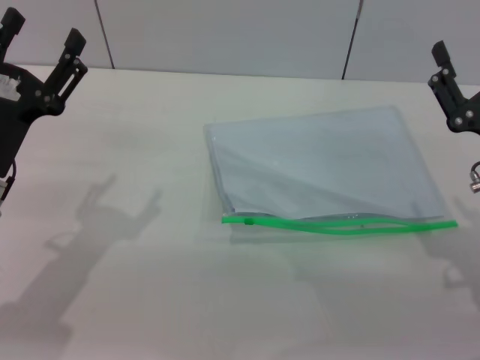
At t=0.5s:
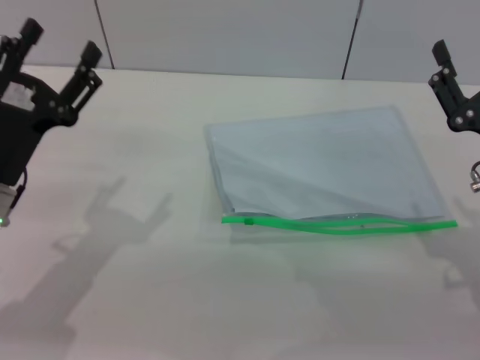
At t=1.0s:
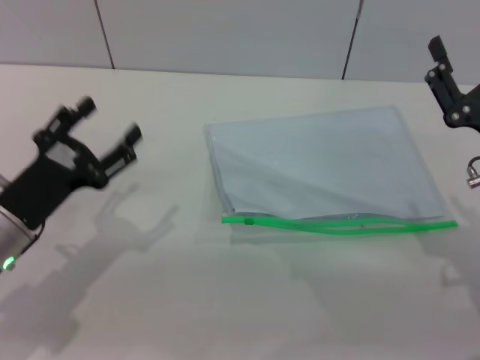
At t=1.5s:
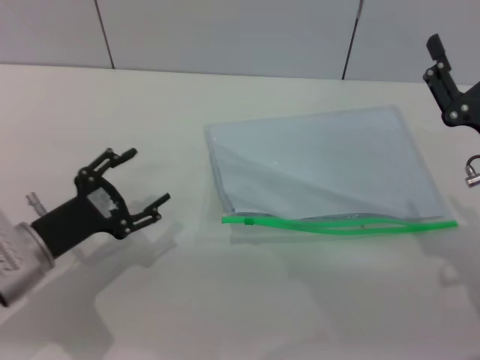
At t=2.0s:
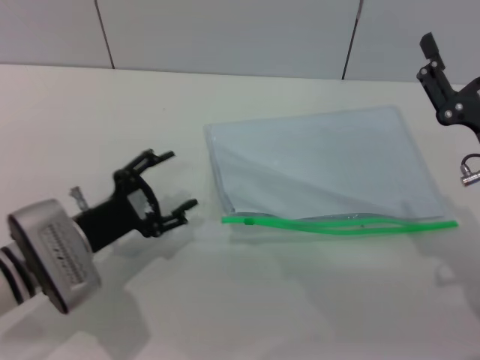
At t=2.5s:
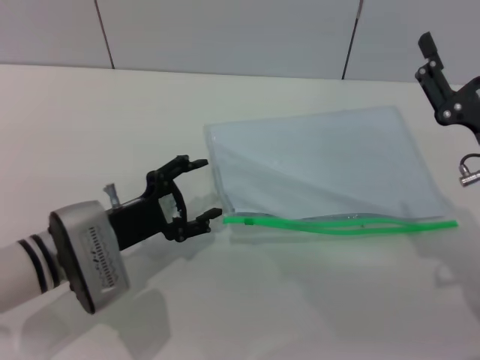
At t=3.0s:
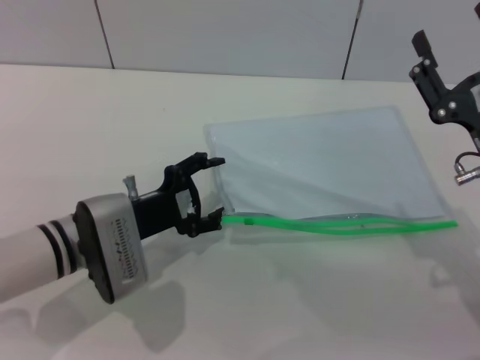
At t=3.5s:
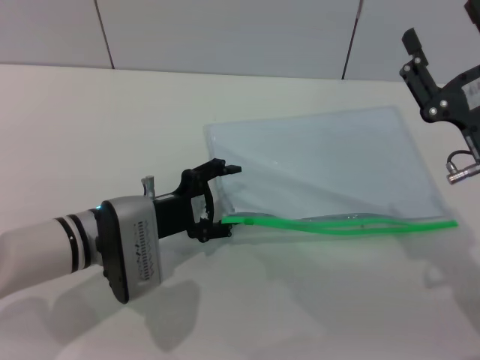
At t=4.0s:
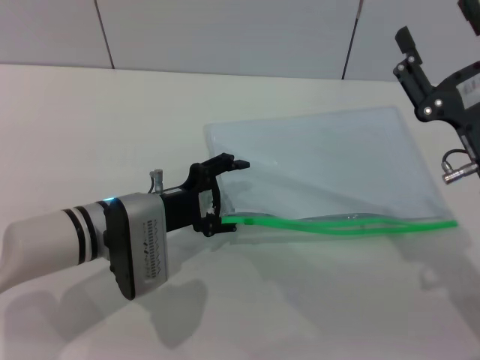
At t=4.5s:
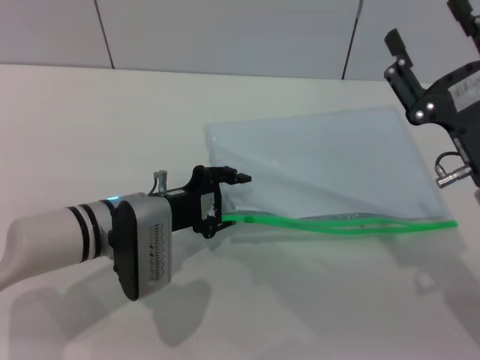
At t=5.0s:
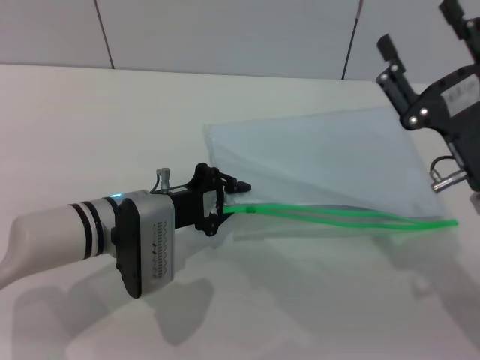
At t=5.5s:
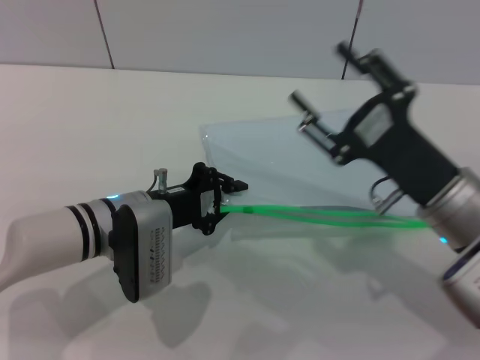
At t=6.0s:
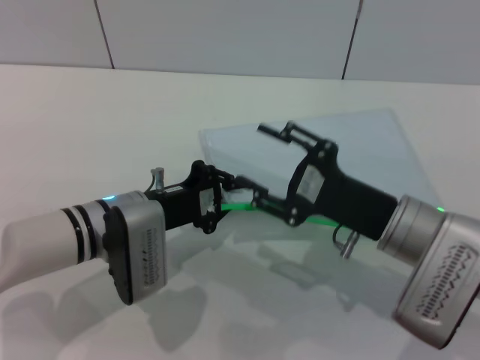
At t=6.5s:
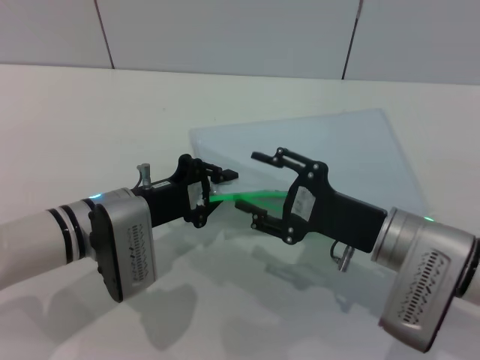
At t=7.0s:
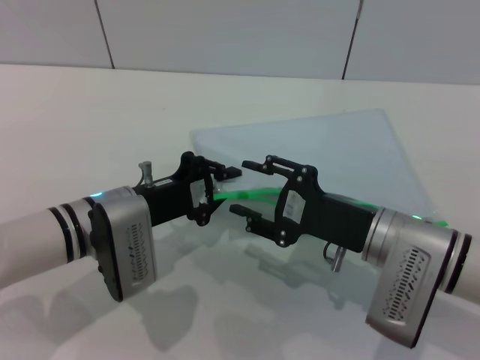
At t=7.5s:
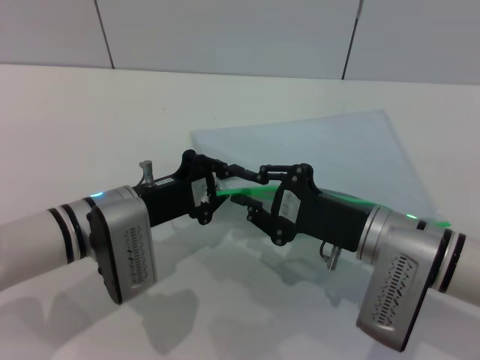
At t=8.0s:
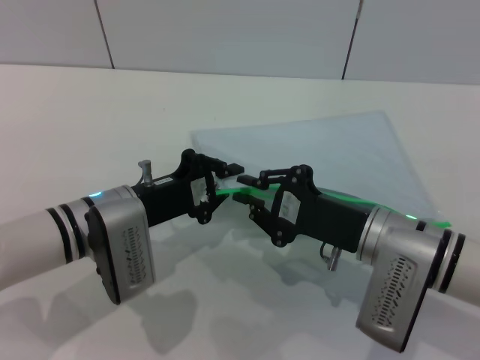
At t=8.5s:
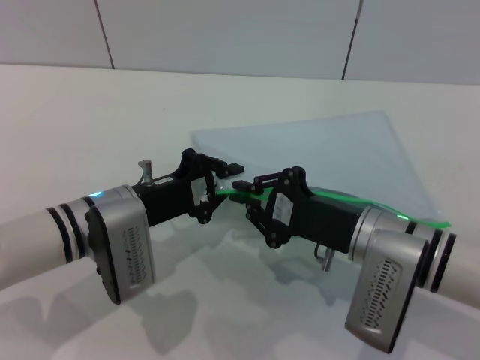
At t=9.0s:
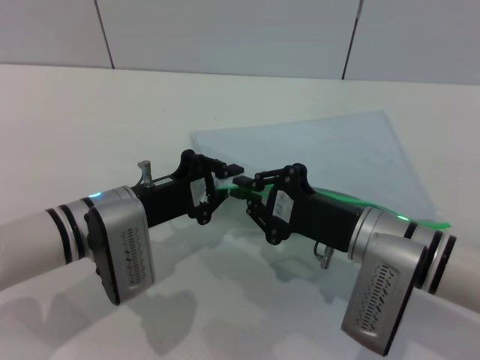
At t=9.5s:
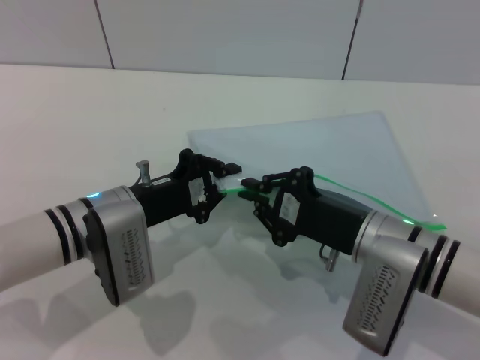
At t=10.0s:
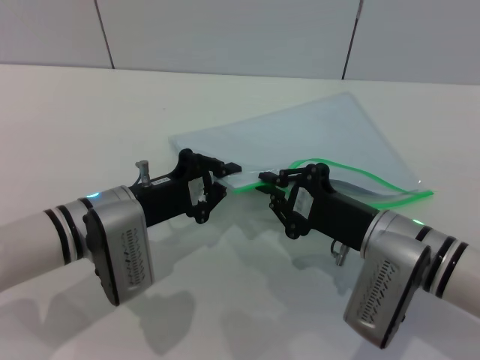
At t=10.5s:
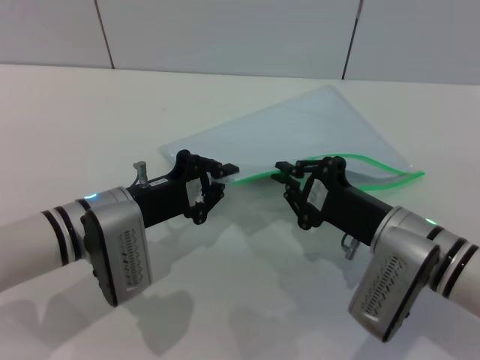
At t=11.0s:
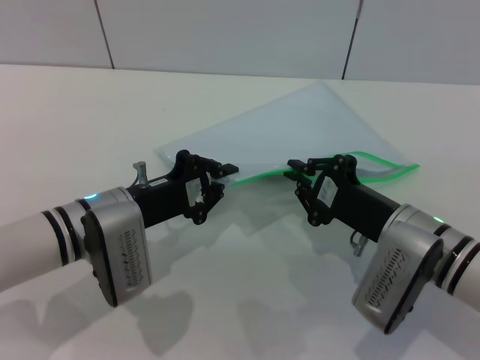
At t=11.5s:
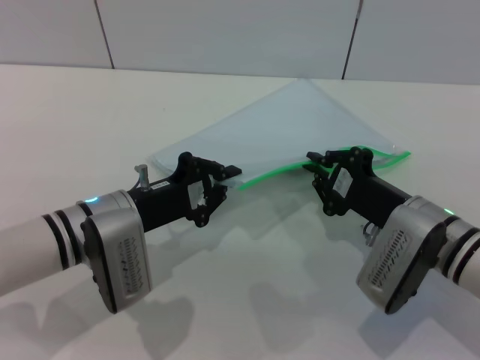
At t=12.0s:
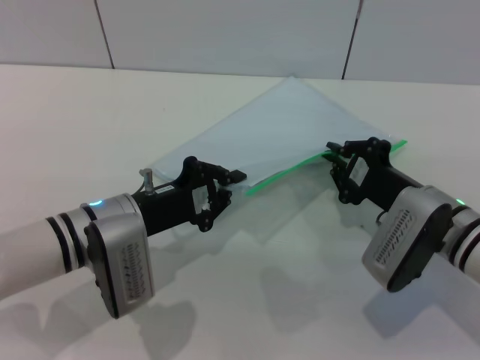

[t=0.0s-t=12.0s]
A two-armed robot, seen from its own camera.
Step, t=0.0s to t=5.5s: Pick up the transparent plastic bag with the left gripper.
t=0.0s to t=2.0s: The left gripper moves downward, about 5 cm.
t=2.0s to t=4.0s: The left gripper shifts some 5 cm to the right.
t=4.0s to t=6.0s: The left gripper closes up, while the right gripper heads to the left, covering approximately 5 cm.
t=6.0s to t=8.0s: The right gripper closes up.
t=8.0s to t=10.0s: The grippers move only a little.
t=10.0s to t=12.0s: The right gripper ends up some 5 cm from where it was.

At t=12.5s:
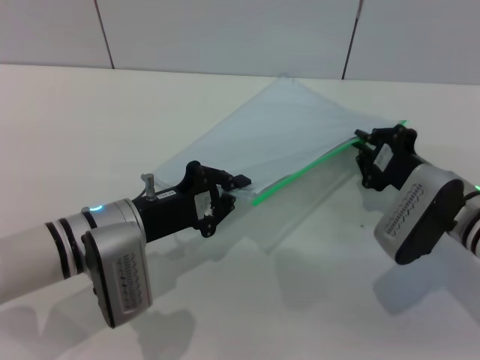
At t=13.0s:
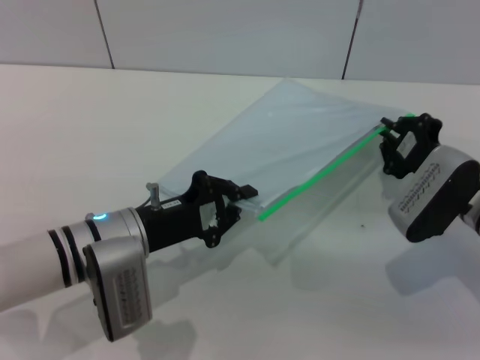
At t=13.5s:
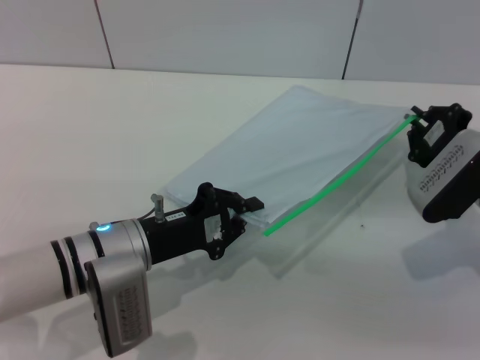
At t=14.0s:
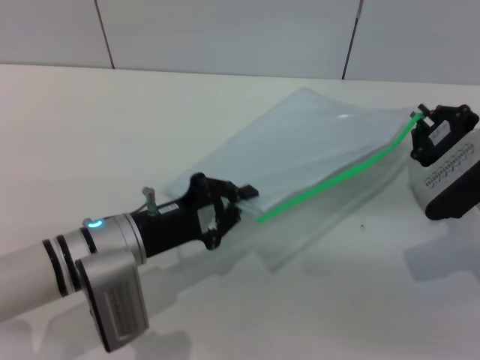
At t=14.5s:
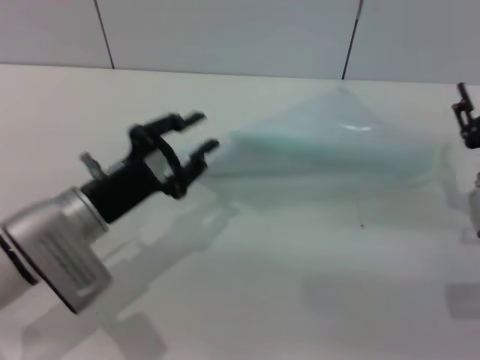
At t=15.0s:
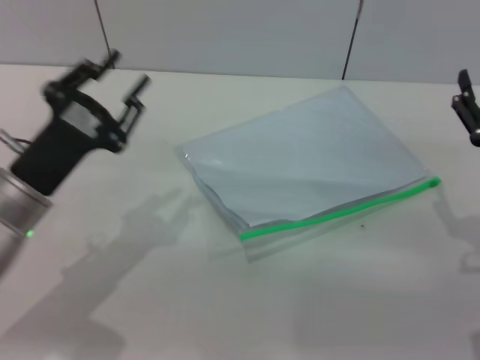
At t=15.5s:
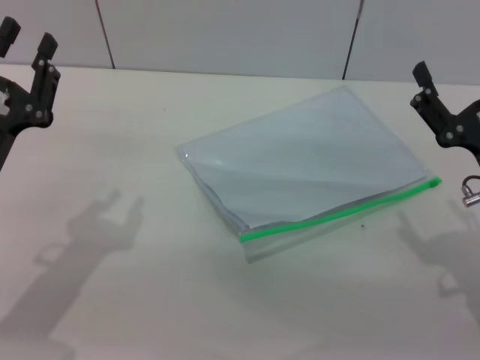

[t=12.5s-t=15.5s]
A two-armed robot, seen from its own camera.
t=12.5s to t=14.0s: There are only small adjustments of the grippers.
t=14.0s to t=15.5s: The left gripper goes approximately 10 cm to the left; the right gripper shifts some 10 cm backward, and opens up.
